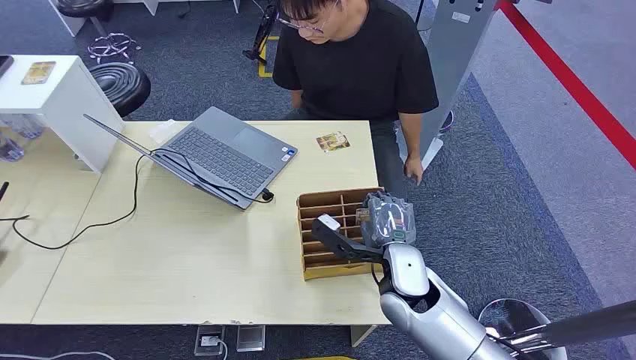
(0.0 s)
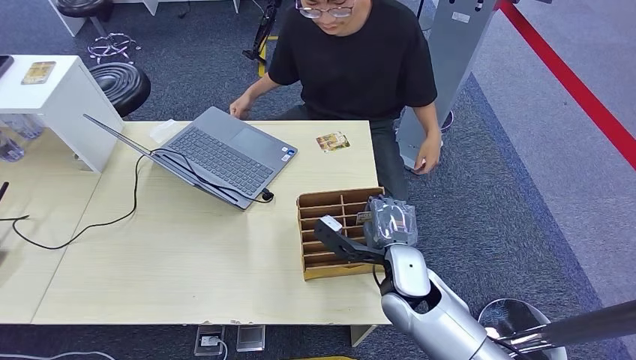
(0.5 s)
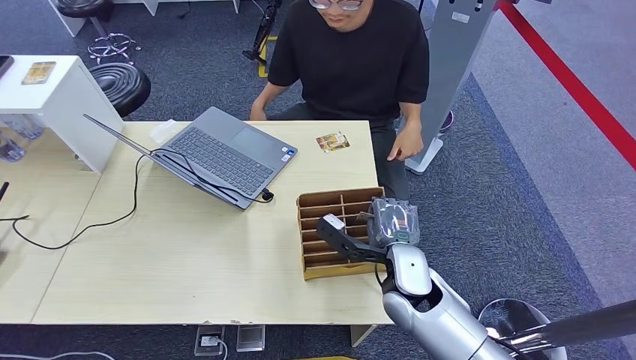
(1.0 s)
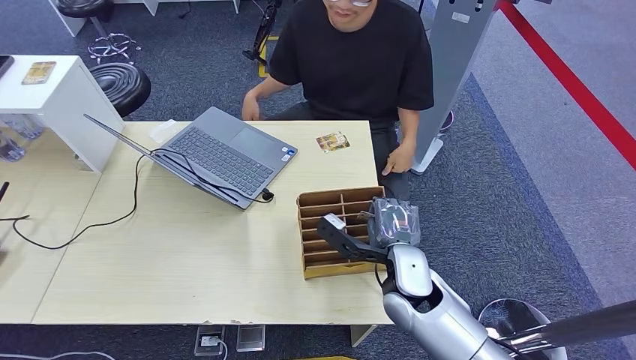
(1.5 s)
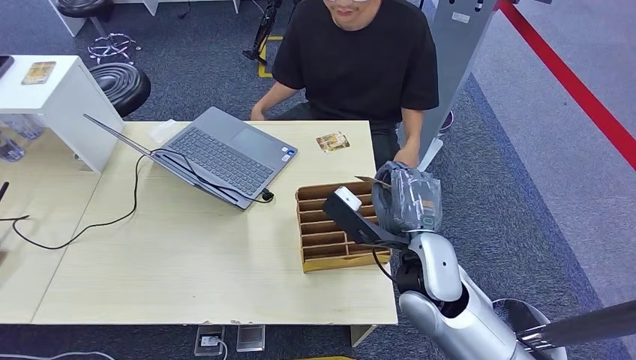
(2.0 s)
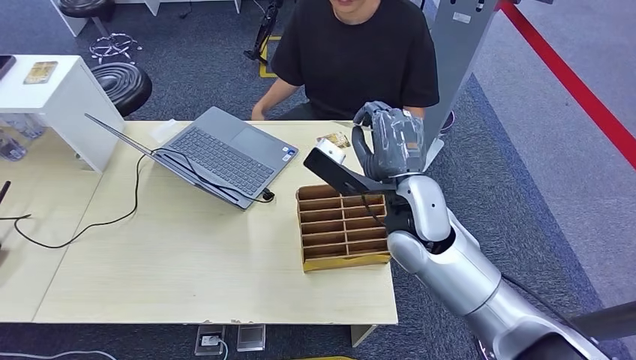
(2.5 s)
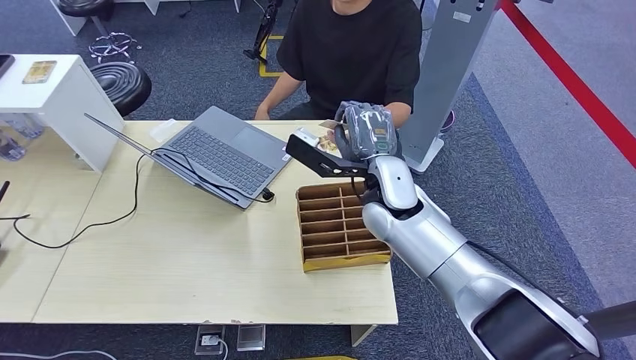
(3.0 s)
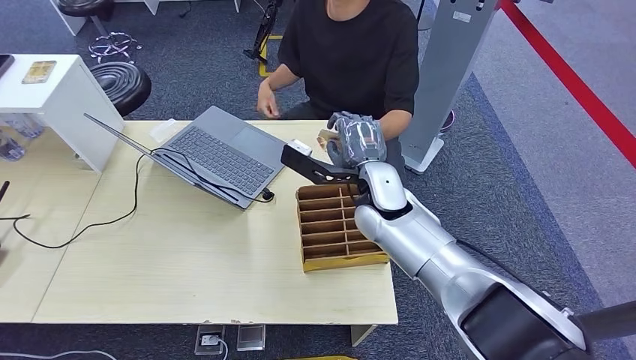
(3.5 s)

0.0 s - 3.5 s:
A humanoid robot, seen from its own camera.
Task of the whole recording: Pick up the card and hand it over to the target person.
Step, 0.0 s - 1.5 s: Pick up the key card from the card box.
Step, 2.5 s - 3.5 s: Hand the key card to the target.
2.0 s - 3.5 s: The right hand heads forward, to the left and downward, covering roughly 15 cm.
